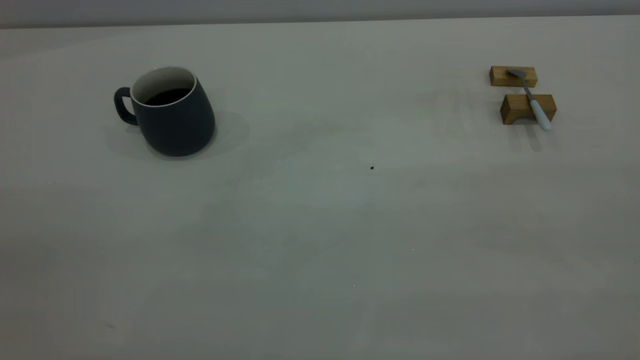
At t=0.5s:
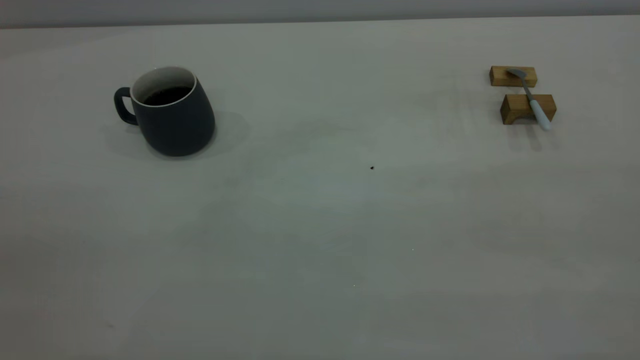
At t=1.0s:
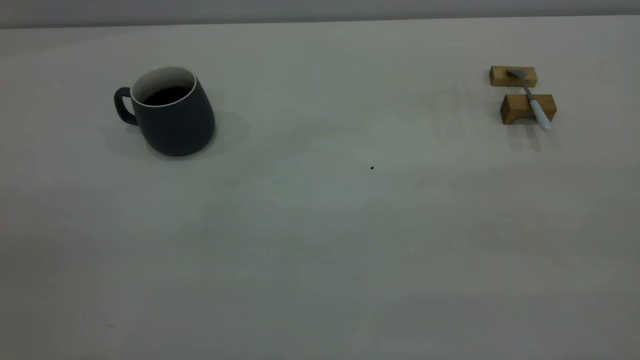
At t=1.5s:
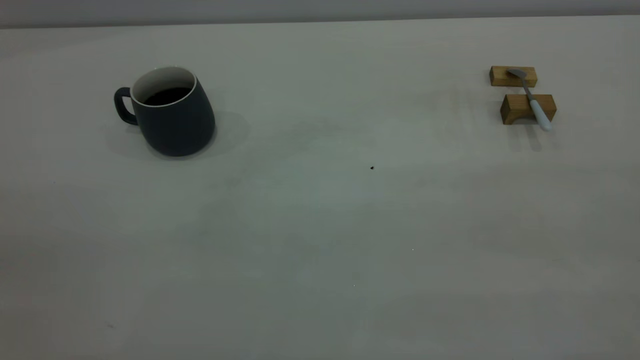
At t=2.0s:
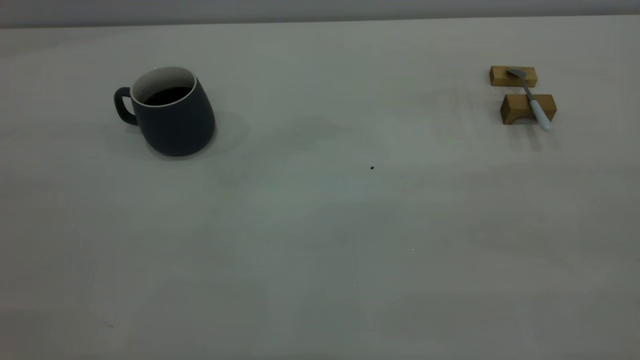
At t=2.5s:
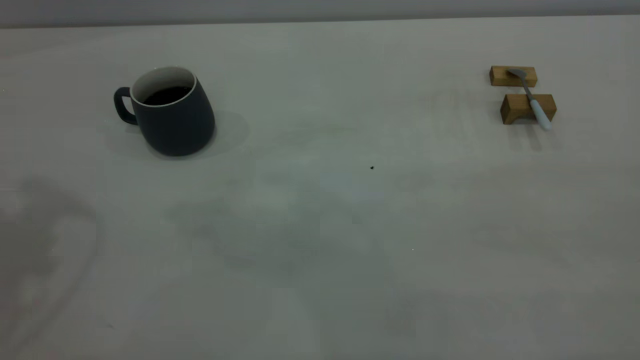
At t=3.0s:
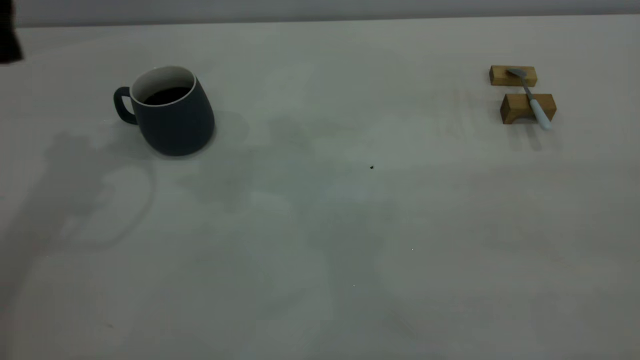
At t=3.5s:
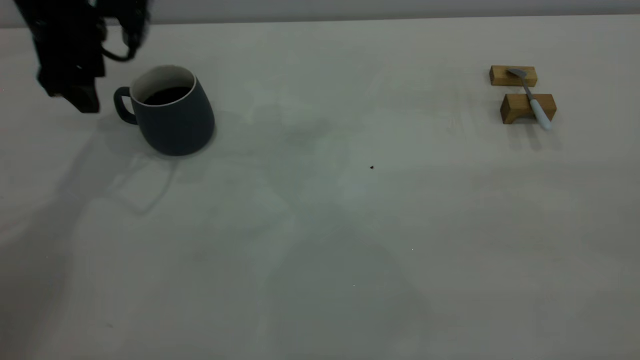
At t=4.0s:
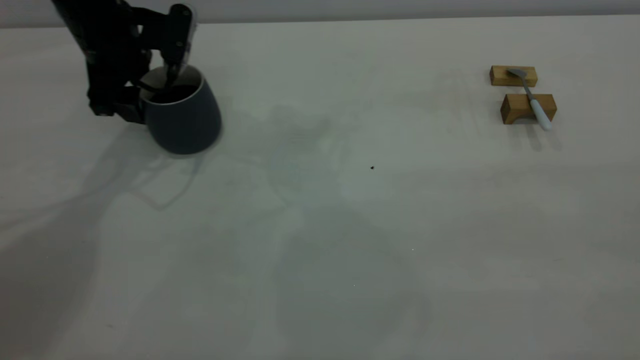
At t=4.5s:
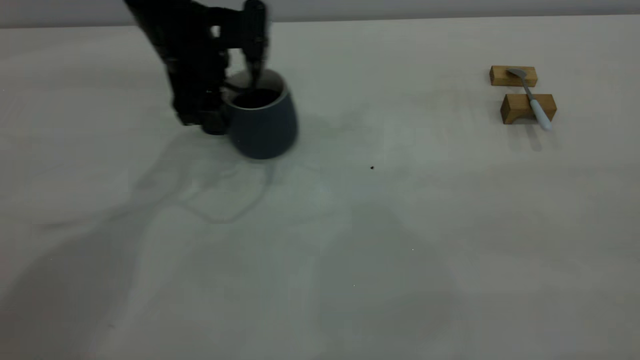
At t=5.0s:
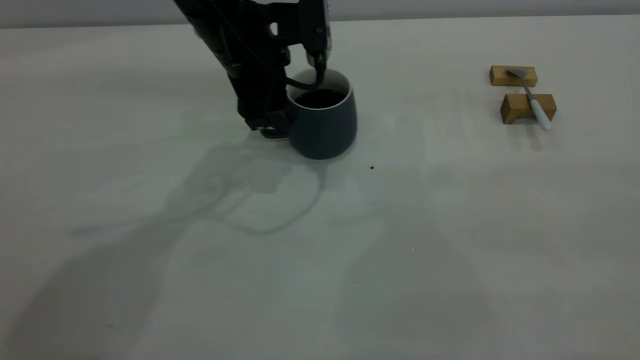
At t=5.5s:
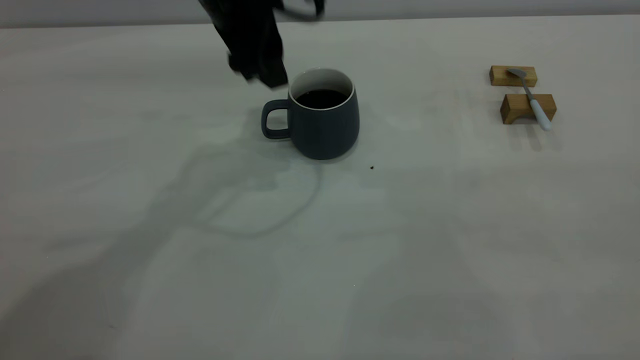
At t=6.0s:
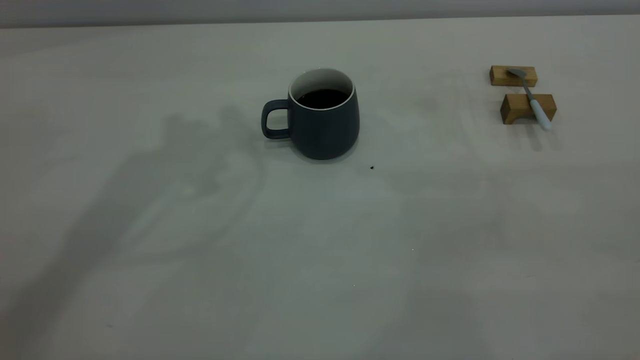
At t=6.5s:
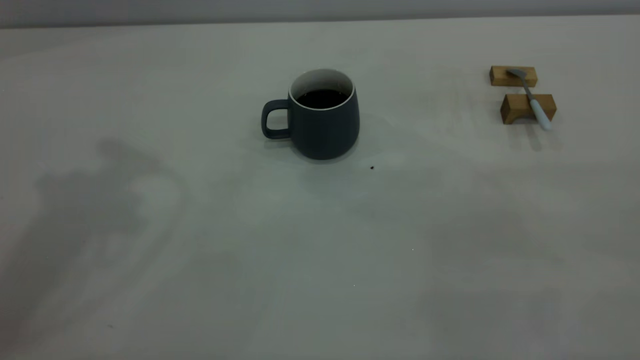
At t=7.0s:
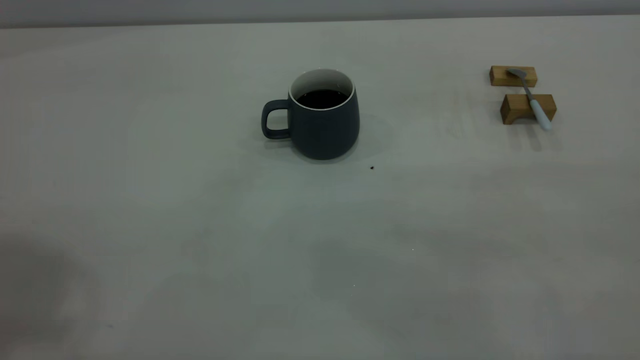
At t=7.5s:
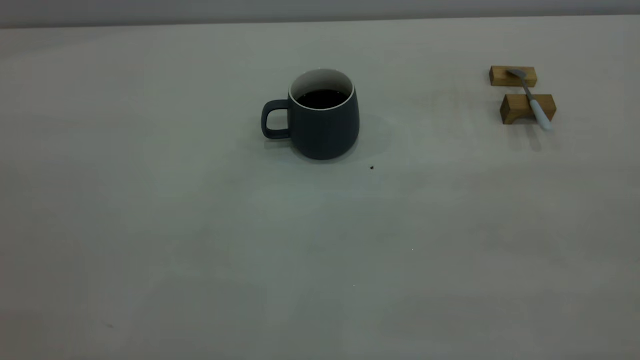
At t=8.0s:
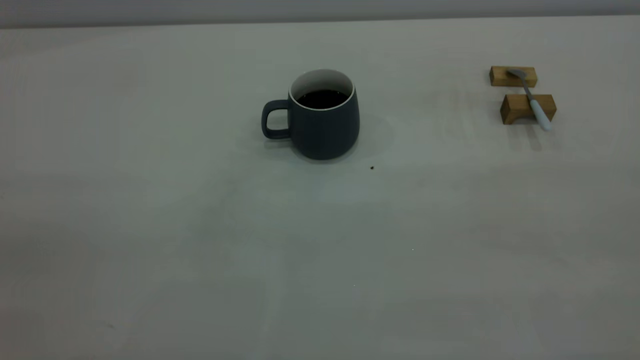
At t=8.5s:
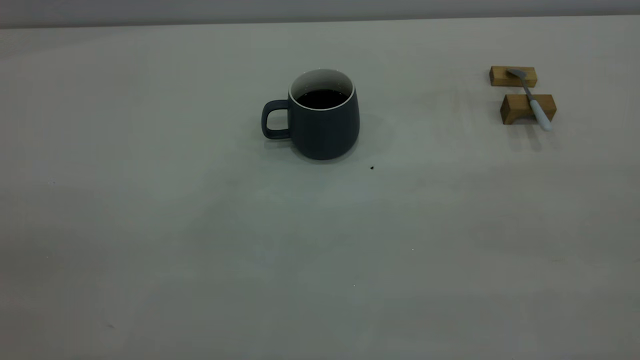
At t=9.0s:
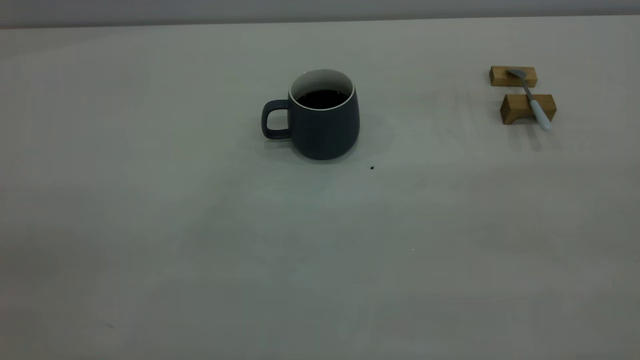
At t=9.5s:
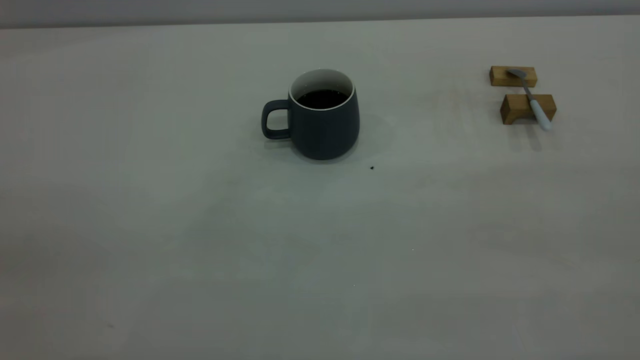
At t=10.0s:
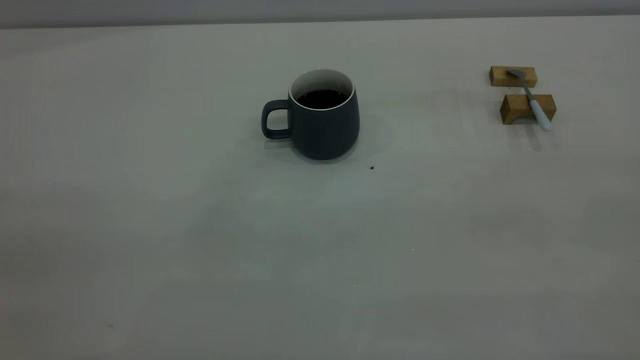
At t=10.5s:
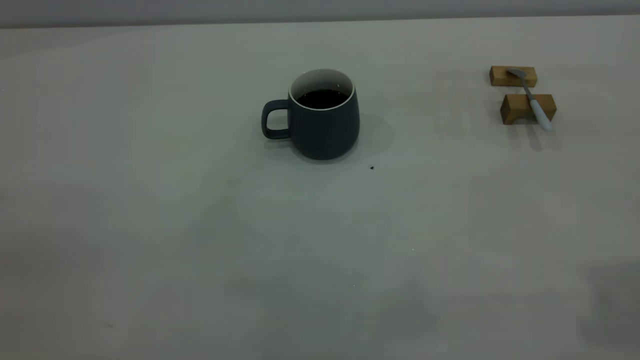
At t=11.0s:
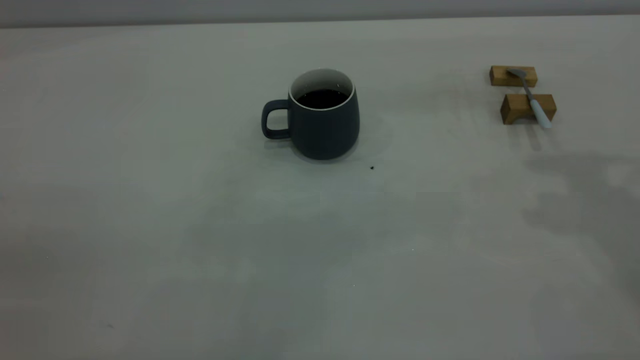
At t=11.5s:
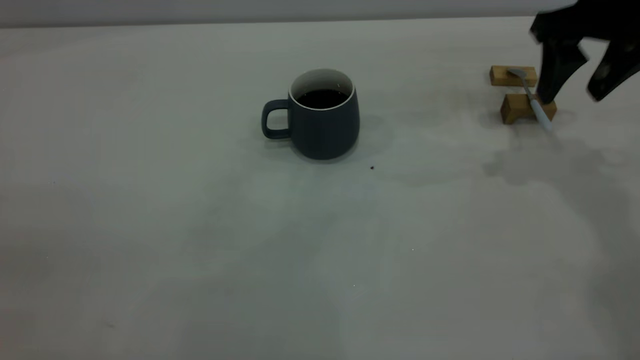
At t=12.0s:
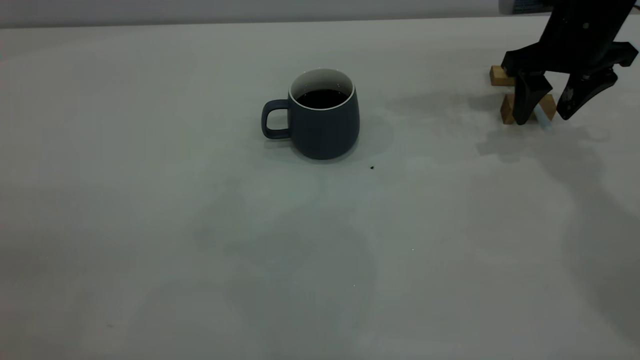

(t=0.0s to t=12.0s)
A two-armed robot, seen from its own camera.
Step, t=0.0s - t=5.5s: Move the cup with coffee to the center of view.
t=2.0s - t=4.0s: The left gripper heads forward and downward, covering roughly 40 cm, and opens.
t=4.0s - t=6.0s: The left gripper is displaced upward by some 20 cm.
t=10.0s - t=12.0s: The right gripper goes approximately 50 cm forward and downward, and opens up.

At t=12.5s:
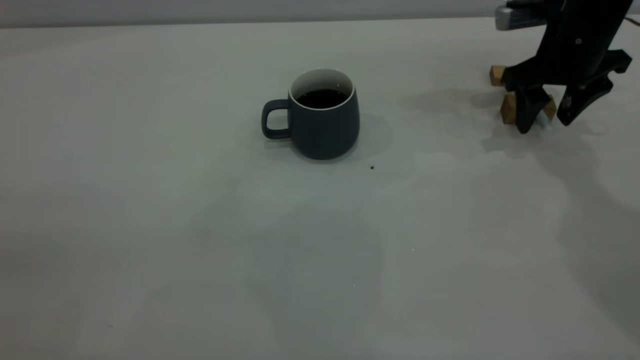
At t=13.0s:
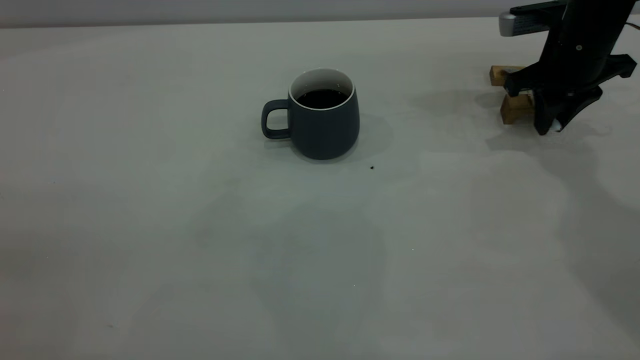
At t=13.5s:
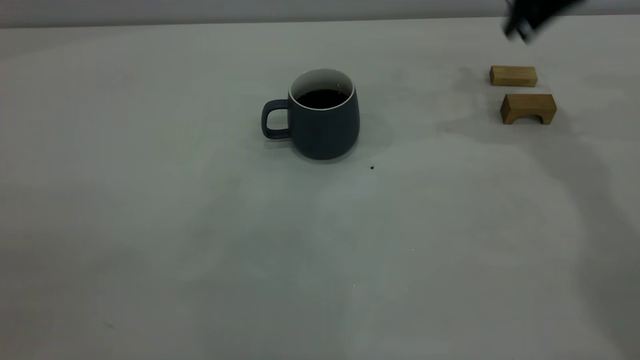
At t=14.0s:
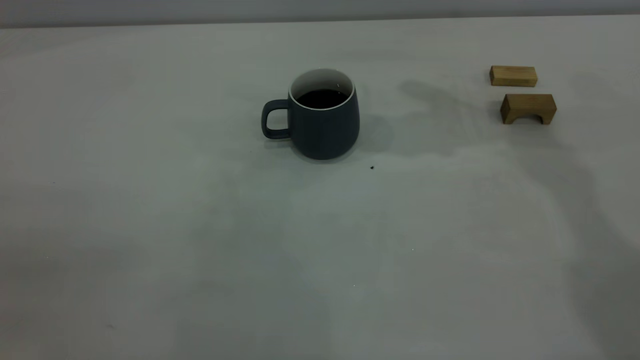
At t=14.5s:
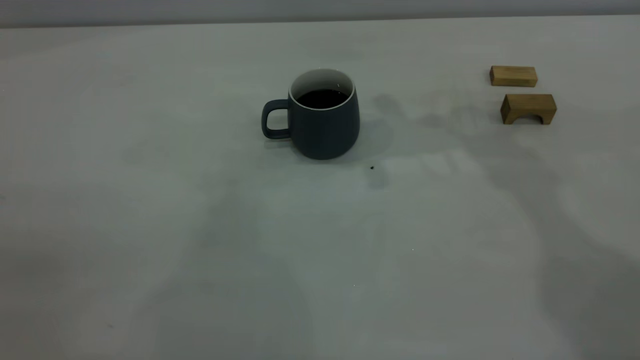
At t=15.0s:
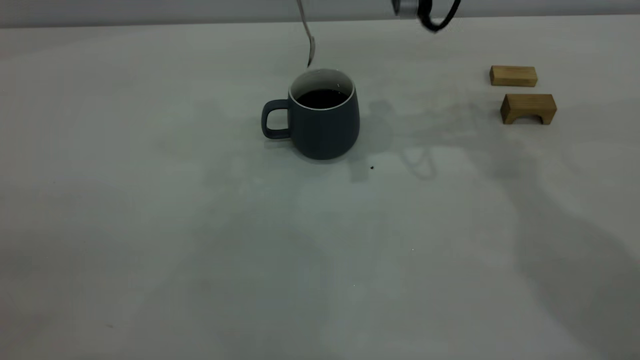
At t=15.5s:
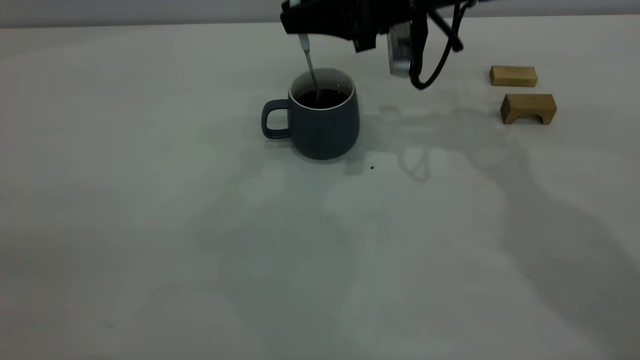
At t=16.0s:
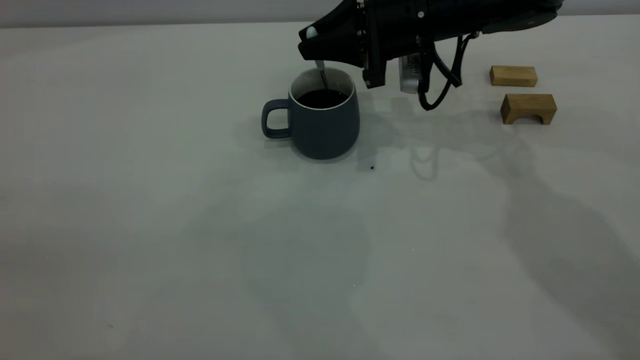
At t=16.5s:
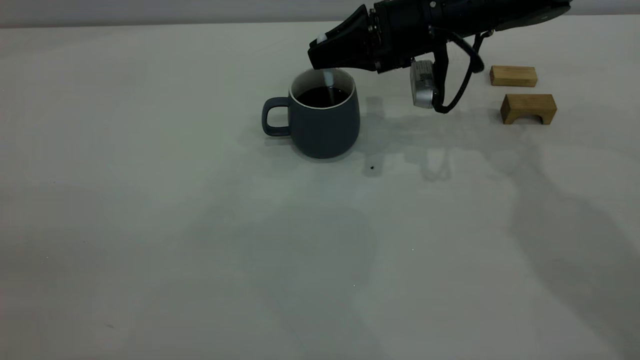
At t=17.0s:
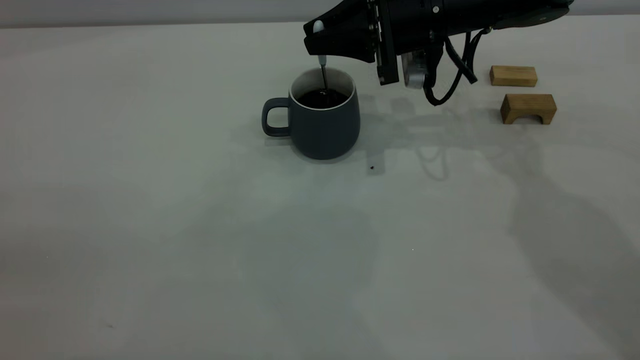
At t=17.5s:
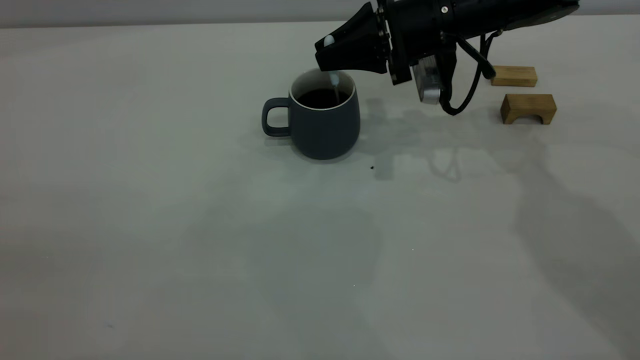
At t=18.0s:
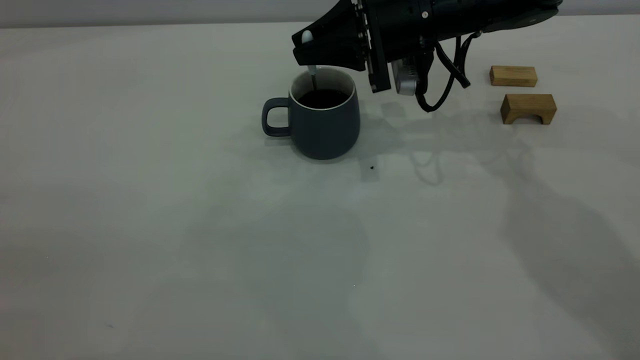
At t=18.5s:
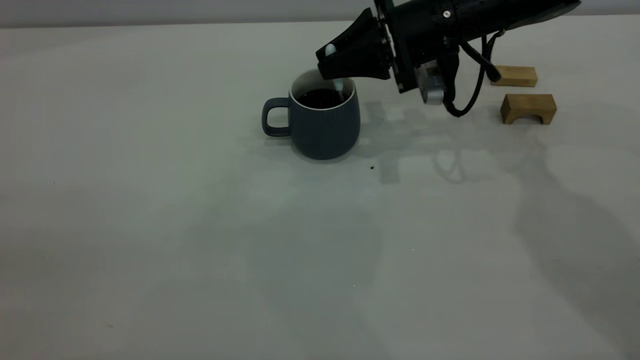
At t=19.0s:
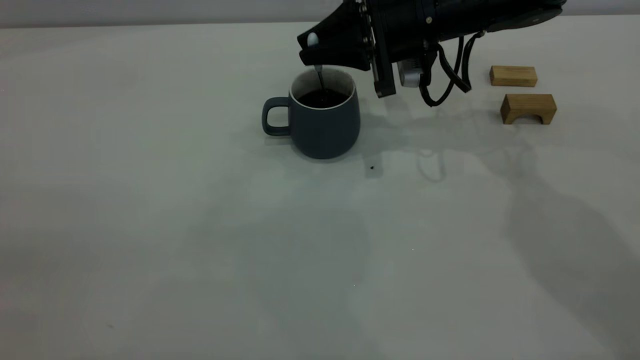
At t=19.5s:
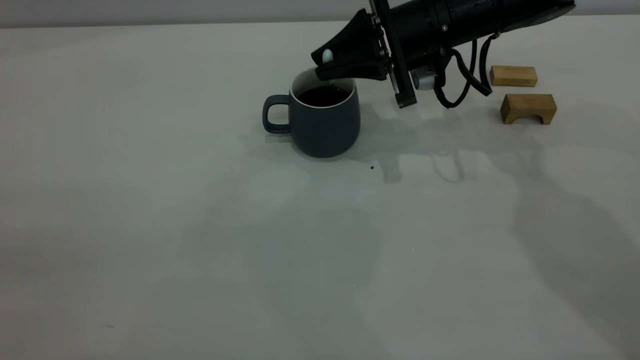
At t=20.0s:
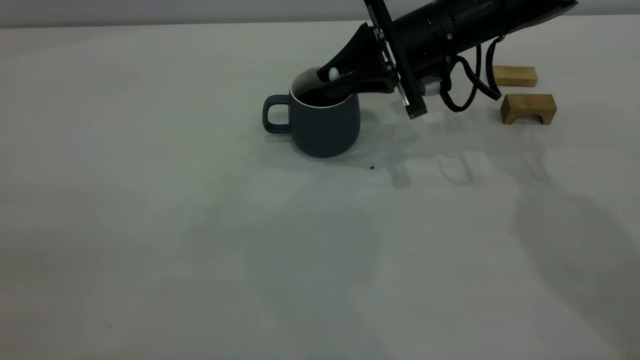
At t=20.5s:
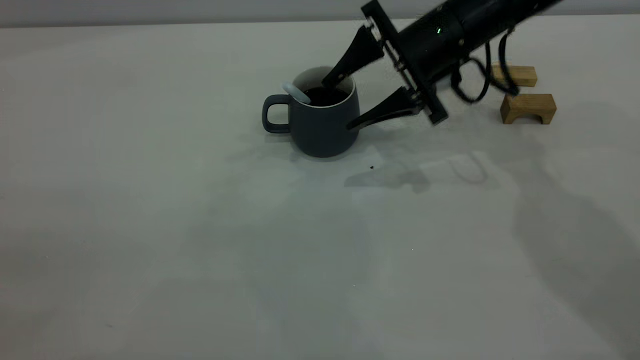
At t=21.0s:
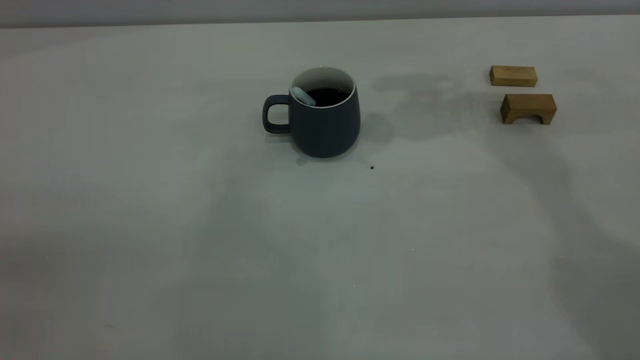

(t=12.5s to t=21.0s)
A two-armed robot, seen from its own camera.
Step, t=13.5s - t=20.5s: Stir the coffee in the cup.
t=12.5s - t=14.5s: The right gripper is displaced upward and to the left by about 25 cm, and closes.
t=14.5s - t=16.5s: The right gripper goes approximately 15 cm downward.
t=19.0s - t=21.0s: The right gripper goes about 20 cm upward, and opens.
